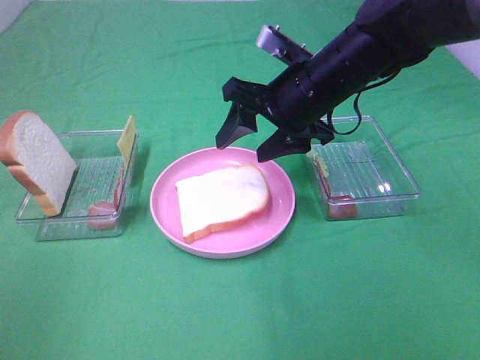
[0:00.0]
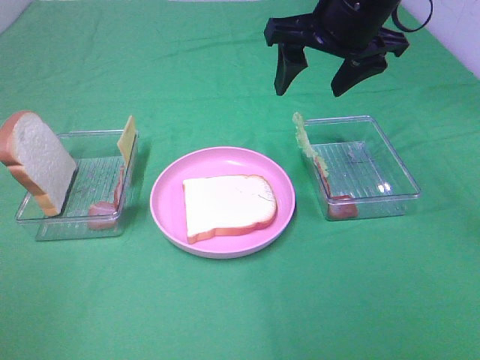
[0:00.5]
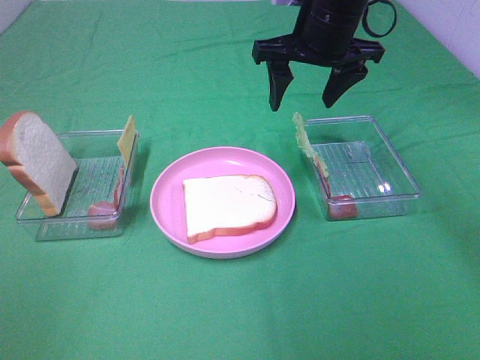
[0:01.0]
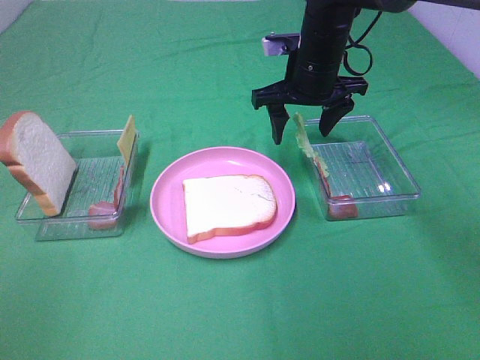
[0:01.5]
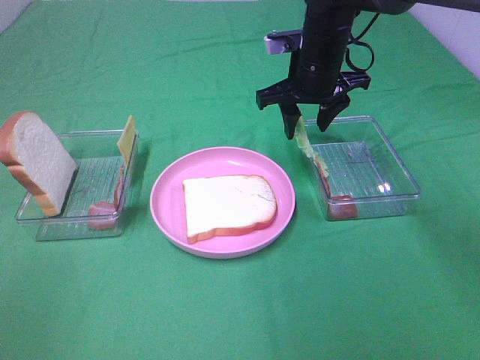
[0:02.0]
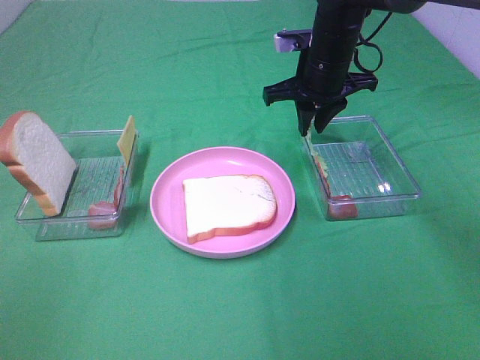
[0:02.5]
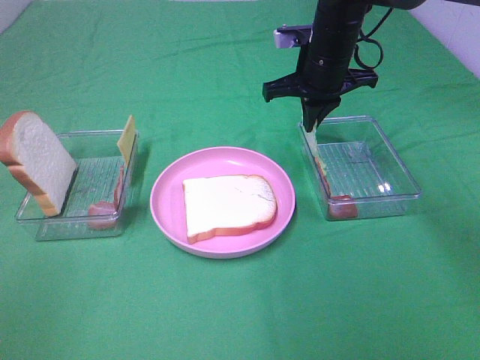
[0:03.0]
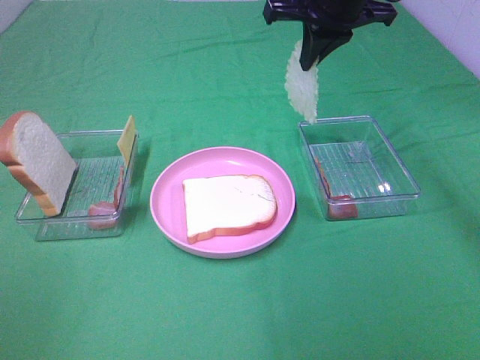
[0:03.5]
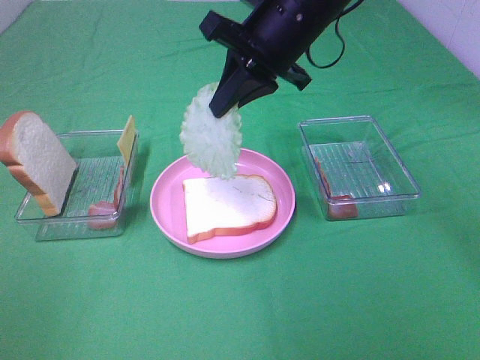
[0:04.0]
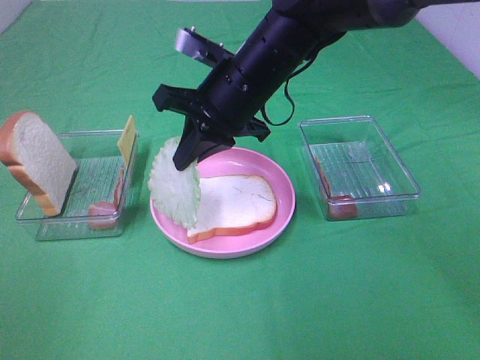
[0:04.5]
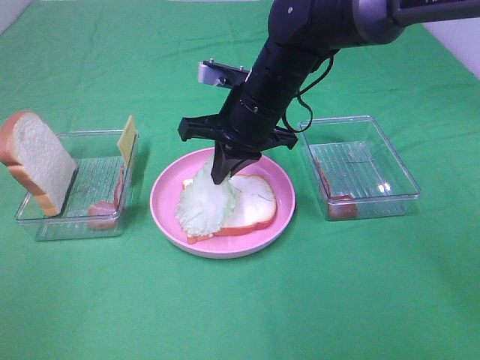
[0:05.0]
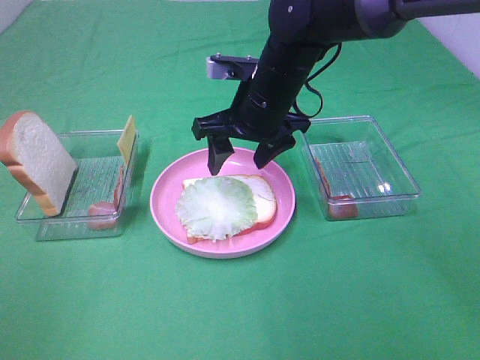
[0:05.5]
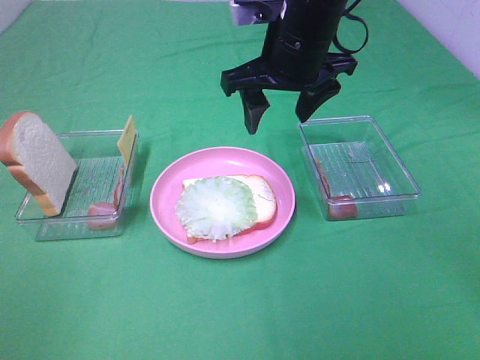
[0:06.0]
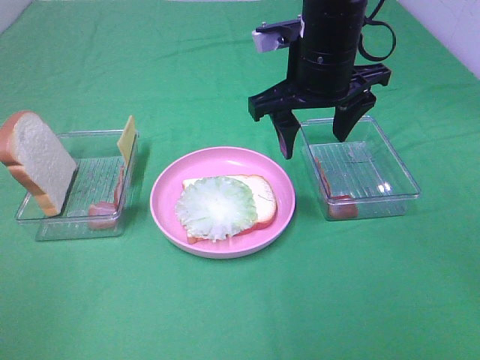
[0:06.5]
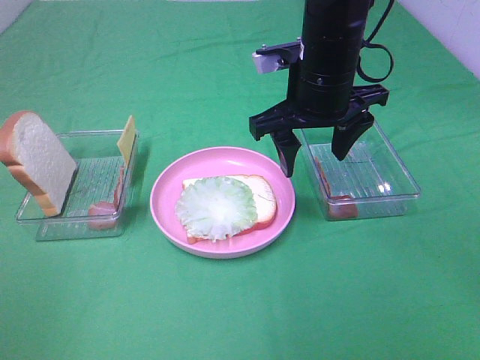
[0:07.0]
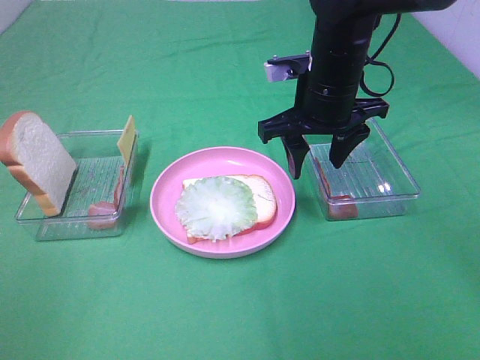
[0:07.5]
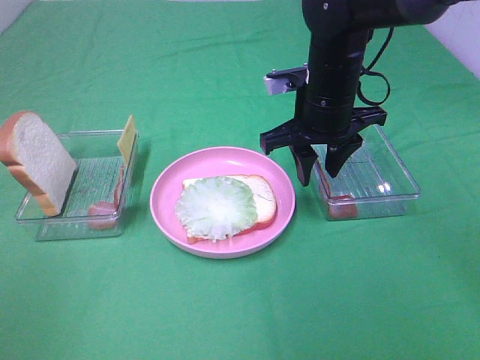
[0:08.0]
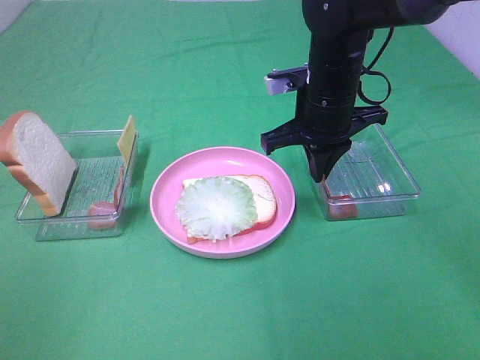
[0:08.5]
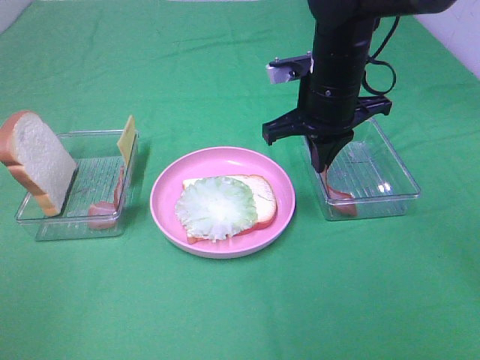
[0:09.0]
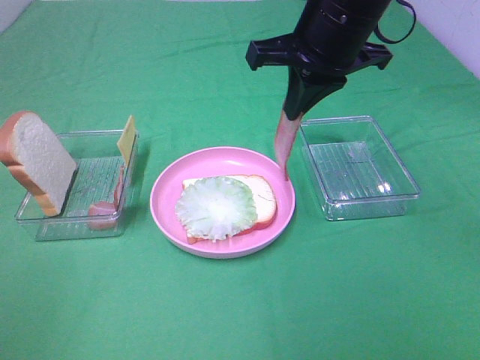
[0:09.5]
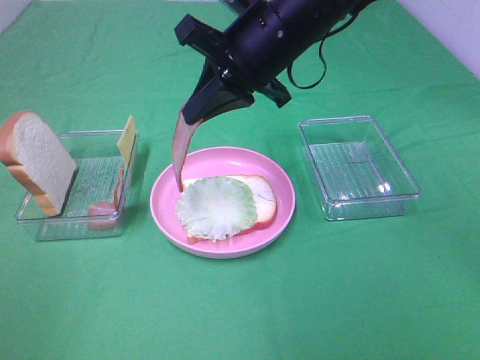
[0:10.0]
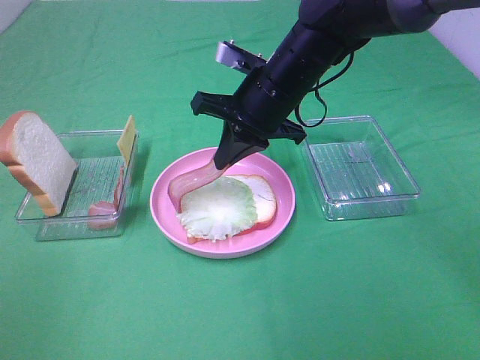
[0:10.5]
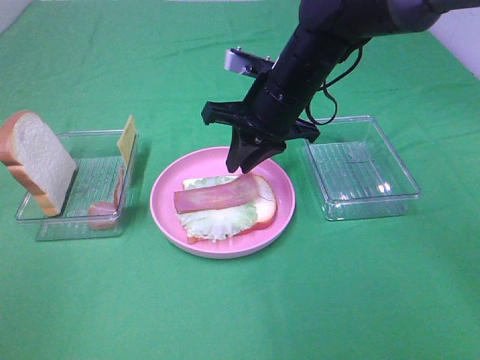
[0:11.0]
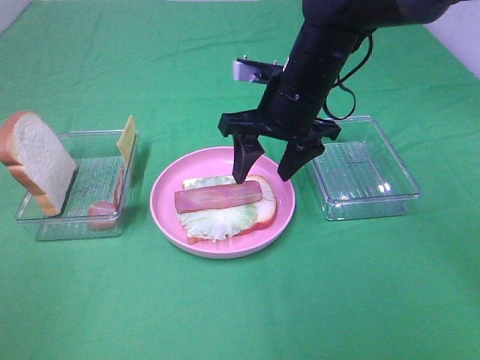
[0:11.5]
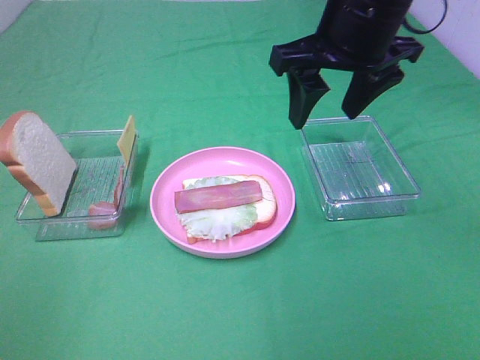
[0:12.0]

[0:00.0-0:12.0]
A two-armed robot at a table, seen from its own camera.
Task of the whole recording: Make sandwiches.
Step, 0:00.0 to 0:03.0: Right hand:grab the lettuce slice.
Step, 0:03.5 to 0:05.5: Right hand:place the lettuce slice on the bread slice.
Step, 0:06.0 to 0:09.0: Right hand:grab the bacon.
Step, 0:09.5 to 0:11.5: Right hand:place bacon on lettuce slice.
0:00.0 to 0:02.0: The right gripper moves forward, some 10 cm, and moves some 10 cm upward and comes back.
0:02.0 to 0:04.0: The right gripper travels backward, upward and to the left by some 10 cm, and closes up.
0:04.0 to 0:06.0: The right gripper travels downward and back again, approximately 10 cm each way, and opens its fingers.
0:06.0 to 0:08.0: The right gripper goes some 5 cm downward, and closes.
0:08.0 to 0:10.0: The right gripper is displaced upward and to the left by roughly 10 cm, and closes.
0:10.0 to 0:12.0: The right gripper heads to the right and upward, covering roughly 10 cm, and opens up.

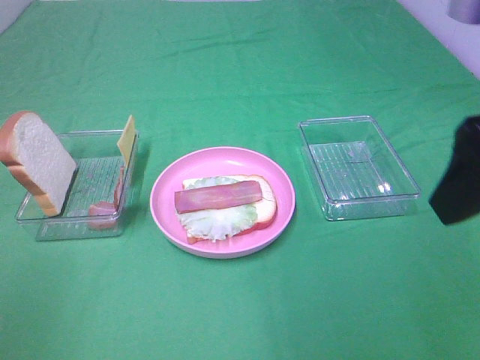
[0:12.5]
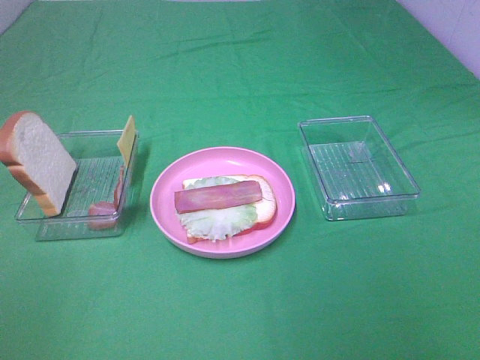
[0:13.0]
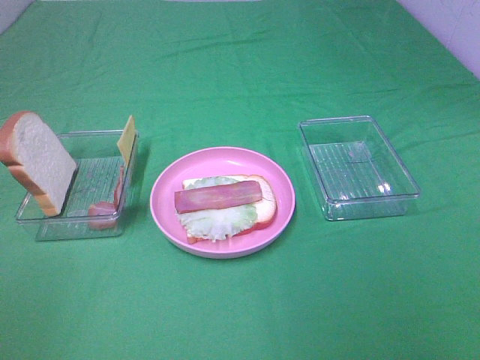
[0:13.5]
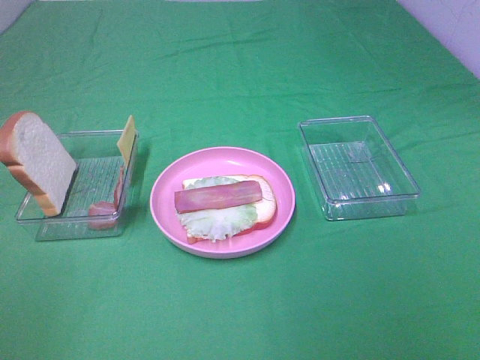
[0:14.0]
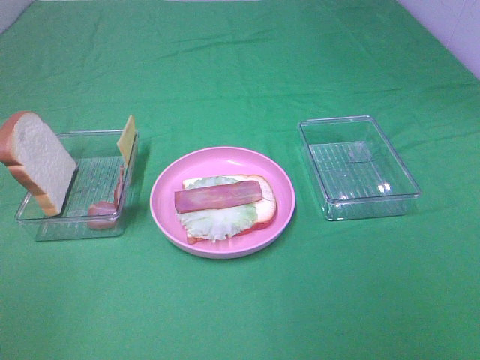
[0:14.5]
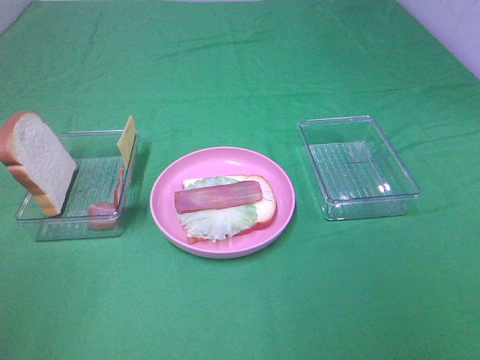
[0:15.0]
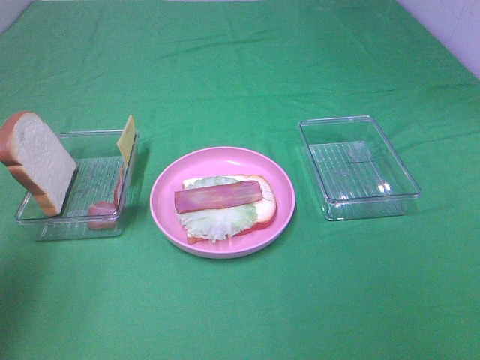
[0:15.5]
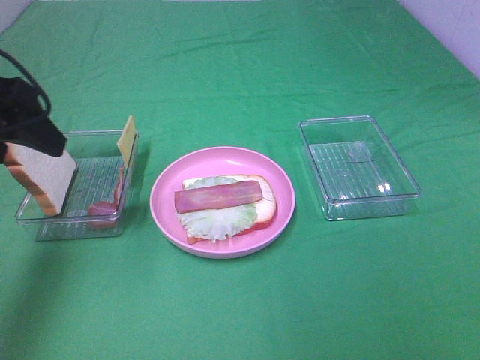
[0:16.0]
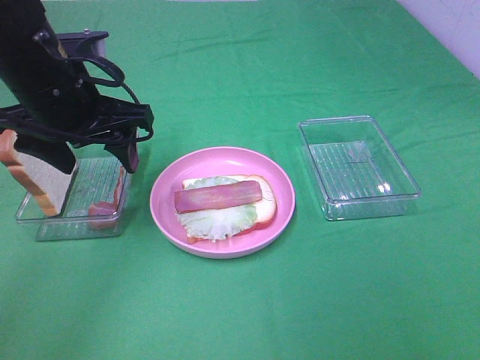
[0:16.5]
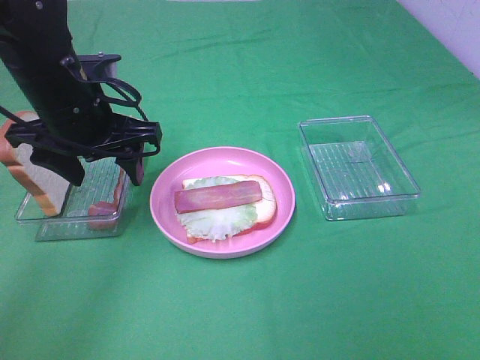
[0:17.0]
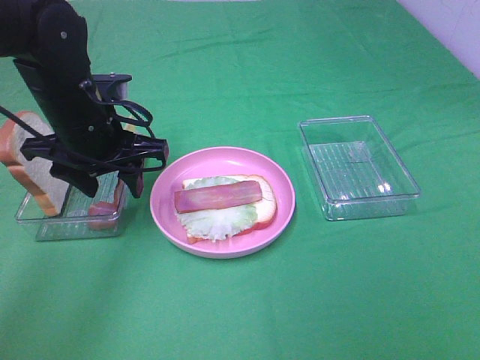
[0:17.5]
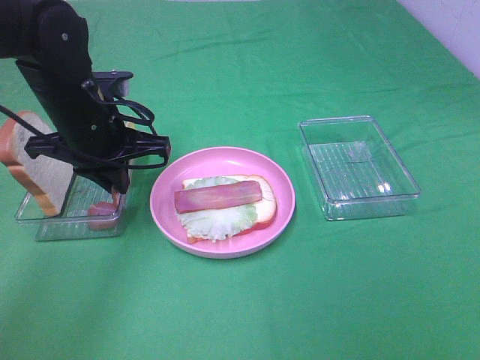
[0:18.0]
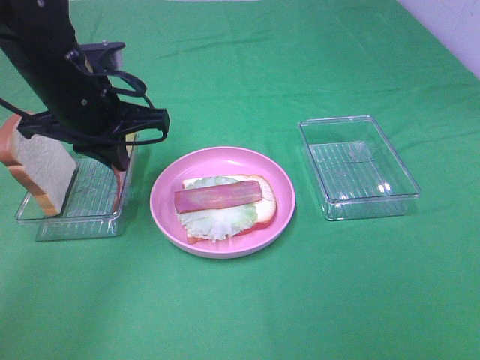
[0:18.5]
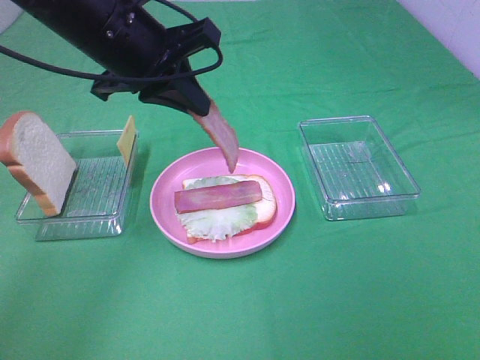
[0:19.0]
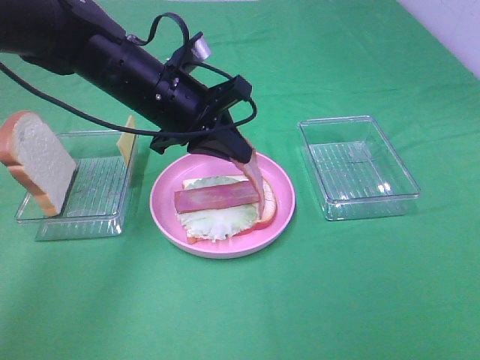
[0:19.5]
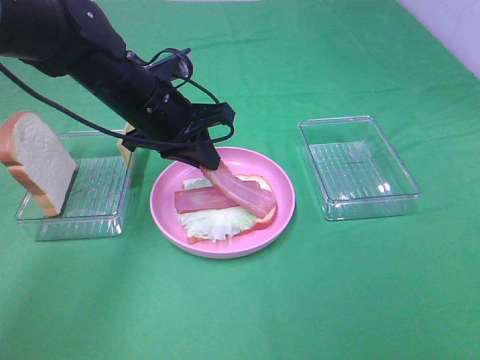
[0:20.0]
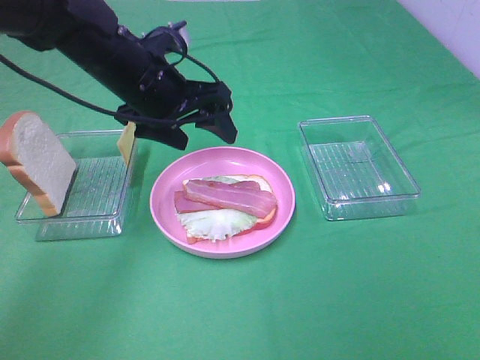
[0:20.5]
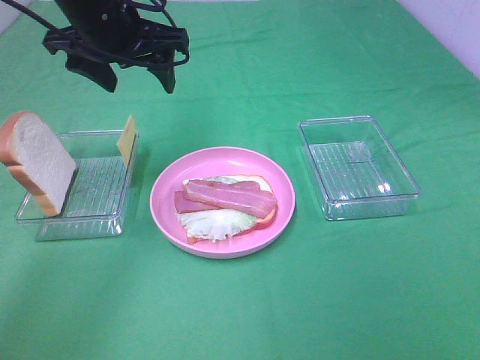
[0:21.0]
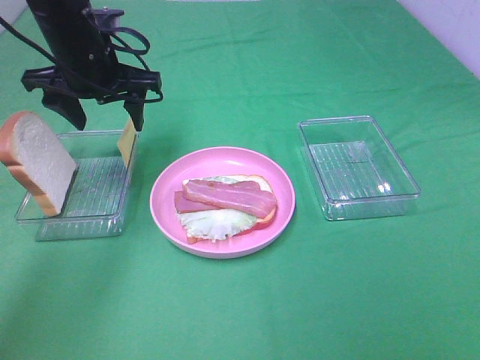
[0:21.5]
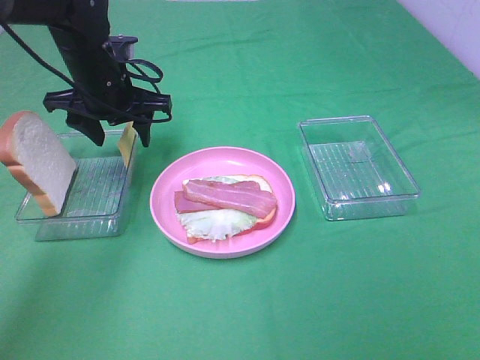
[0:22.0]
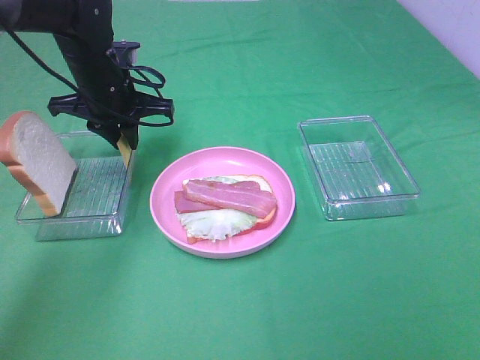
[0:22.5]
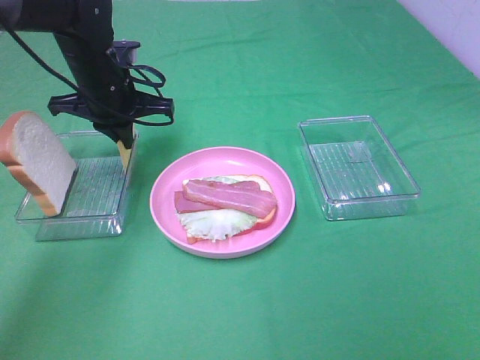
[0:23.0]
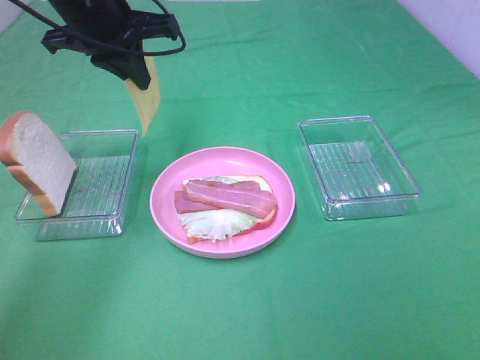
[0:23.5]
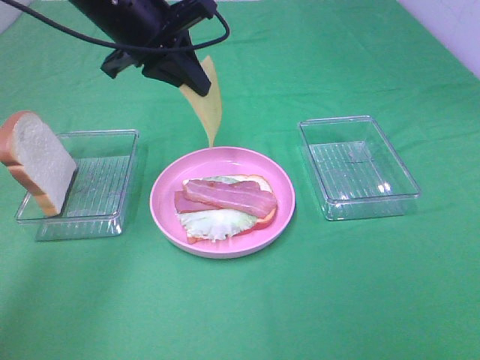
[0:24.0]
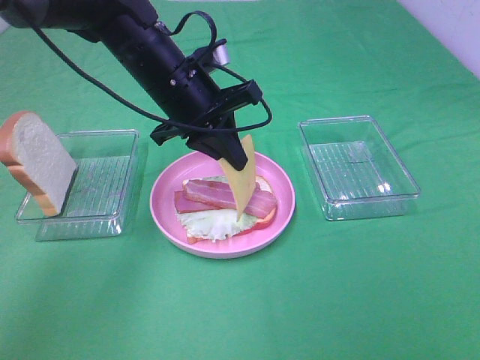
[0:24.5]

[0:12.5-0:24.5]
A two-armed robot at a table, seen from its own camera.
Task of the whole recording: Make sandwiches.
Step, 0:12.5 to 0:18.5: Left hand:grab the bacon.
Step, 0:19.0 to 0:20.0: Left hand:place bacon on bacon.
Step, 0:20.5 to 0:23.0: Left hand:grab the cheese slice.
0:12.5 to 0:14.5: The right gripper moves backward and to the right, about 20 cm.
0:14.5 to 0:16.5: The left gripper goes some 35 cm forward and to the right.
0:16.5 to 0:18.5: The left gripper closes.
0:18.5 to 0:20.5: The left gripper moves roughly 5 cm upward and comes back, and opens up.
0:20.5 to 0:22.5: The left gripper moves forward and to the left, roughly 10 cm, and closes.
0:22.5 to 0:24.5: The left gripper travels to the right and backward by about 10 cm, and goes upward and returns, approximately 10 cm each way.

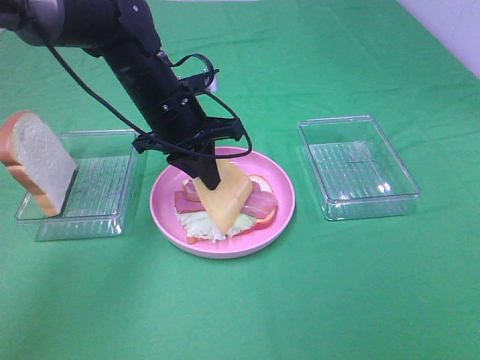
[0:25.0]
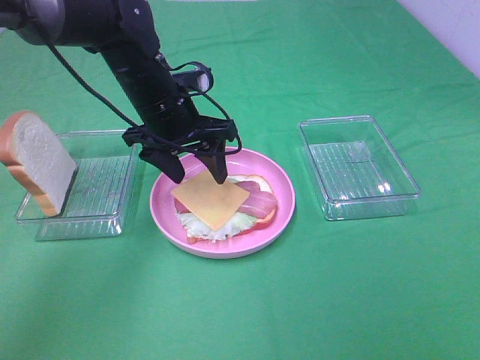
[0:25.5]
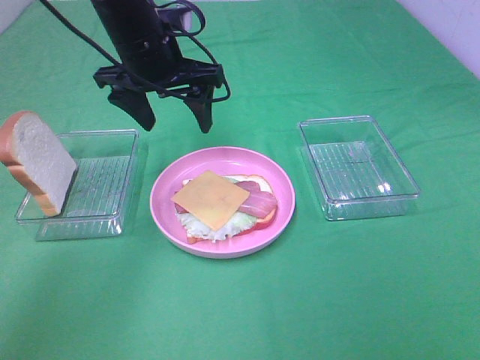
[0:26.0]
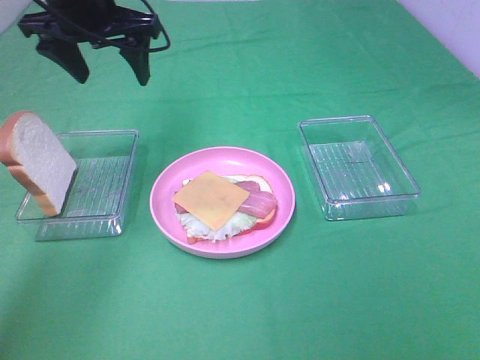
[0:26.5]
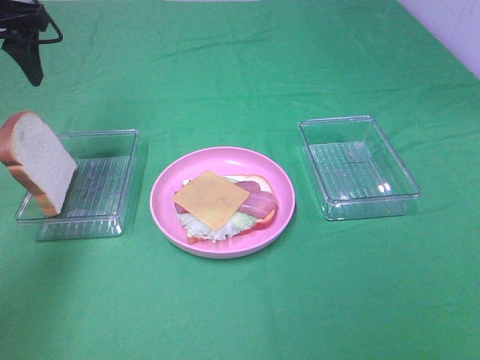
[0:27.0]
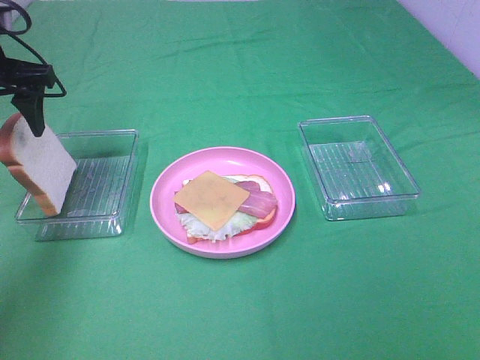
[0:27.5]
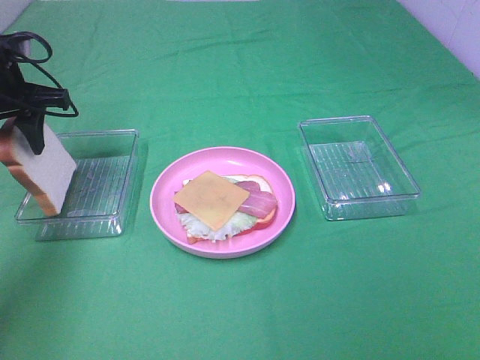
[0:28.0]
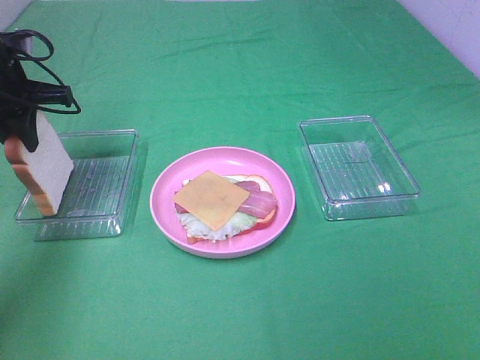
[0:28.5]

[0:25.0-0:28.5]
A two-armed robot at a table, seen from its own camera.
Task of the whole recording: Make sandwiches.
0:25.0 to 0:27.0: The left gripper travels to the left and upward by approximately 25 cm, and opens up.
0:27.0 to 0:28.5: The left gripper is displaced downward by some 10 cm, and closes its fingers.
